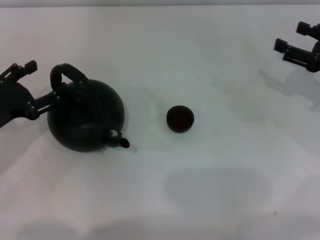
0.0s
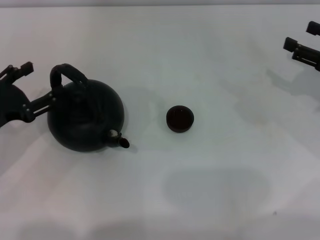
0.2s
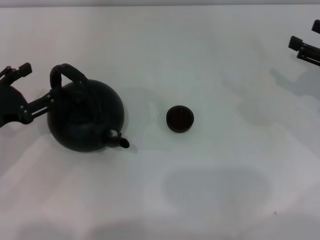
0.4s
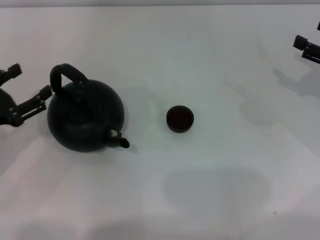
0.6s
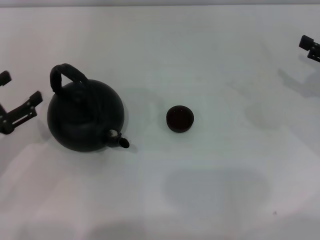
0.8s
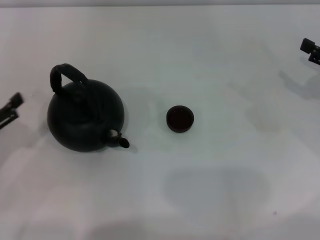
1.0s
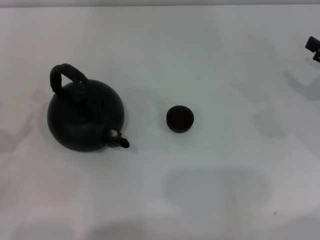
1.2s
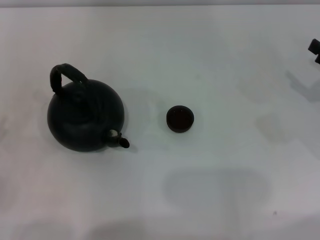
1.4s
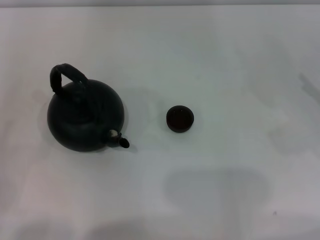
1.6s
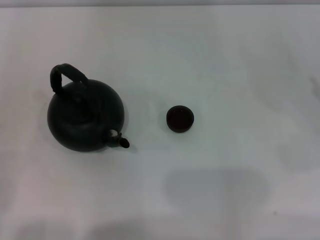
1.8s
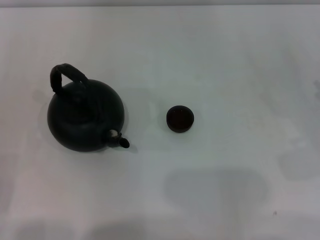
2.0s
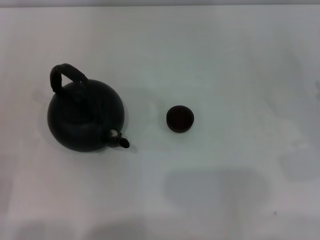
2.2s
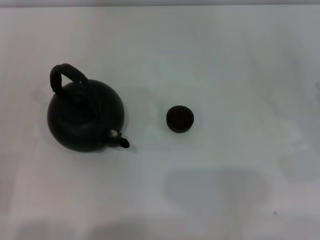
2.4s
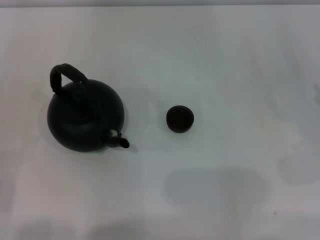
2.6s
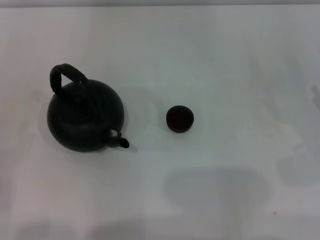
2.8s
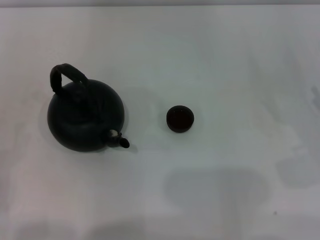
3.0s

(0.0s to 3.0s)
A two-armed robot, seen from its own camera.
Task of the whole recording: Grasp the handle of the teapot with one hand and pour tea into the teacup.
0.0s - 1.6s: The right gripper moves backward, some 5 cm. The left gripper is displaced backward and to the left by about 15 cm.

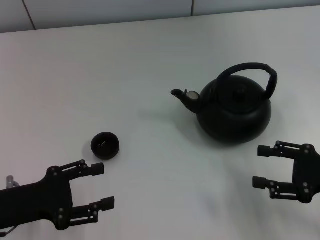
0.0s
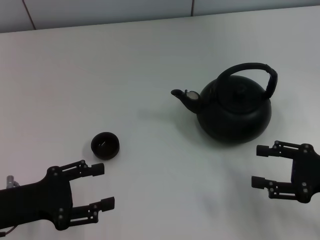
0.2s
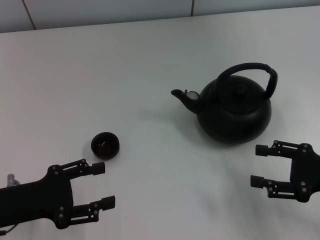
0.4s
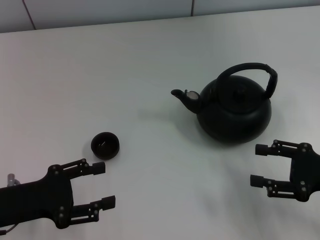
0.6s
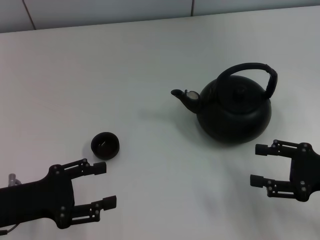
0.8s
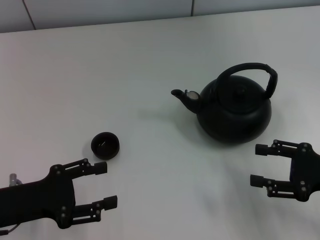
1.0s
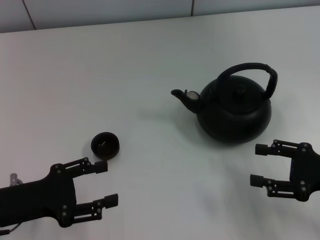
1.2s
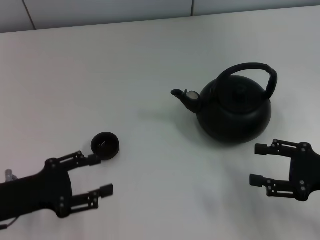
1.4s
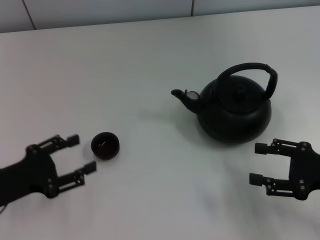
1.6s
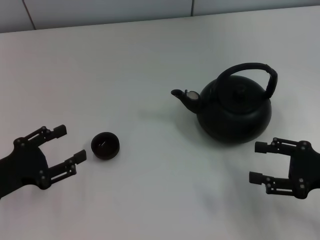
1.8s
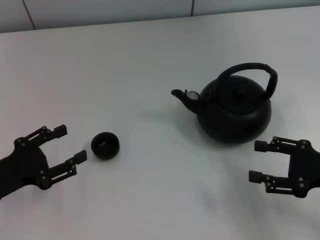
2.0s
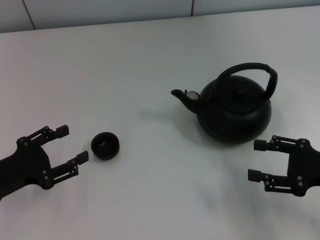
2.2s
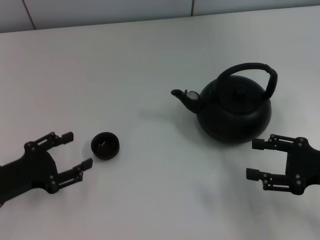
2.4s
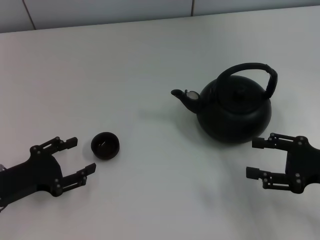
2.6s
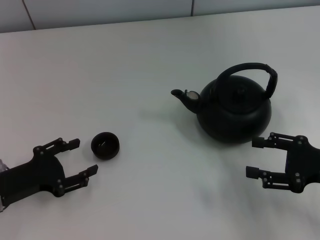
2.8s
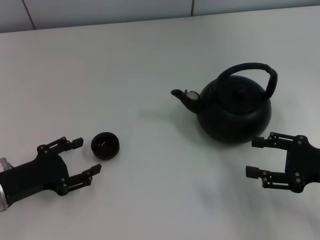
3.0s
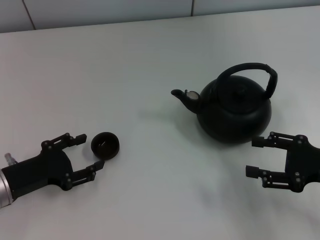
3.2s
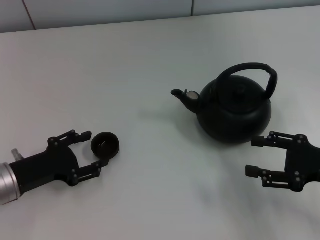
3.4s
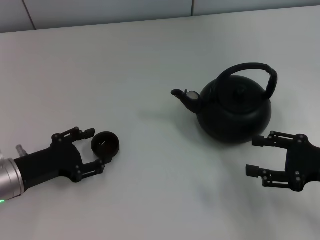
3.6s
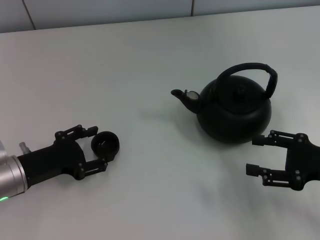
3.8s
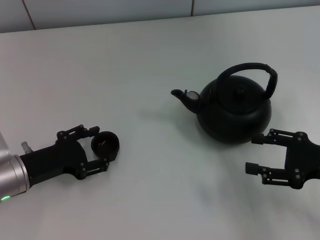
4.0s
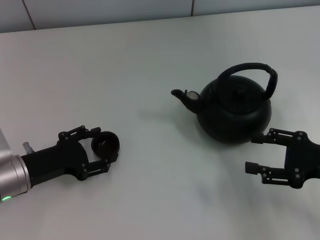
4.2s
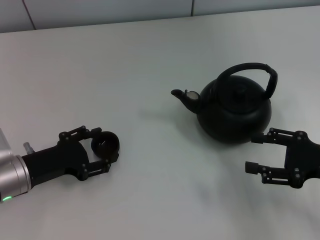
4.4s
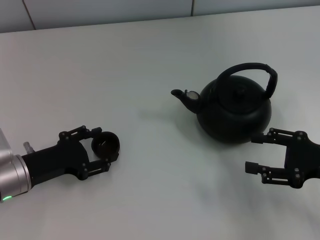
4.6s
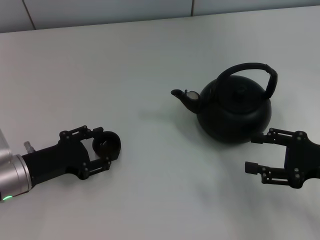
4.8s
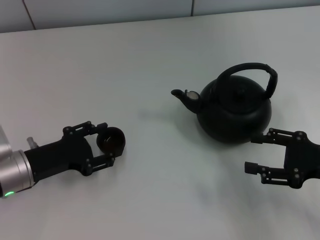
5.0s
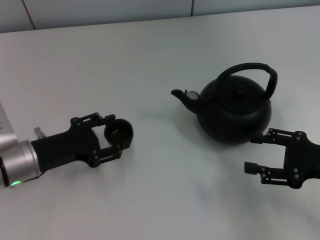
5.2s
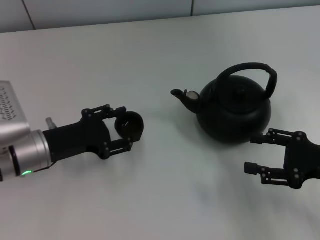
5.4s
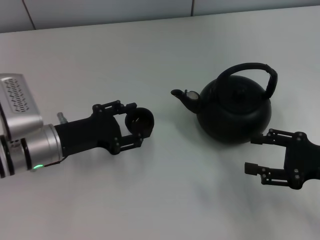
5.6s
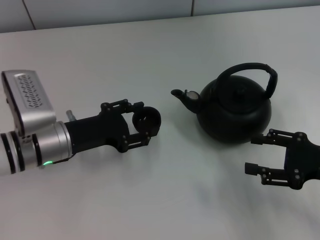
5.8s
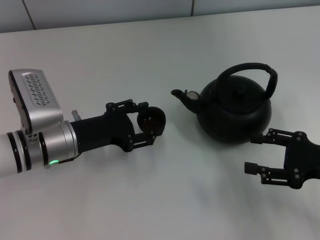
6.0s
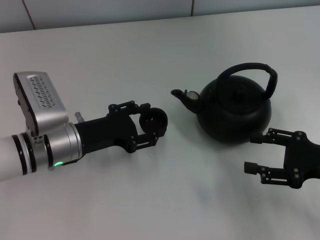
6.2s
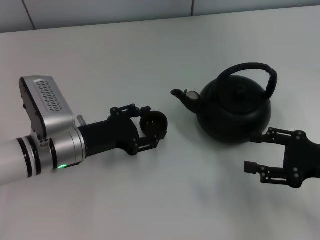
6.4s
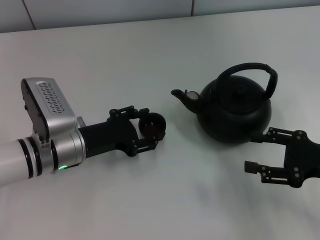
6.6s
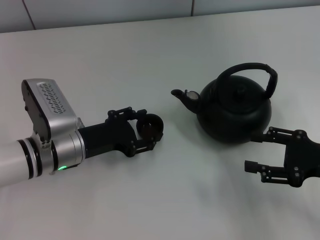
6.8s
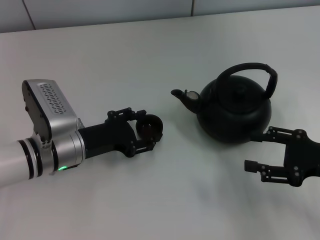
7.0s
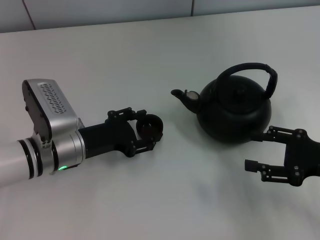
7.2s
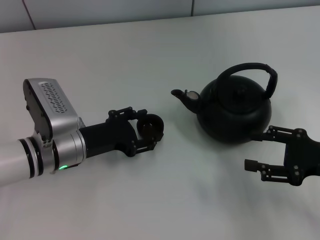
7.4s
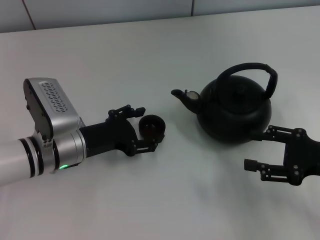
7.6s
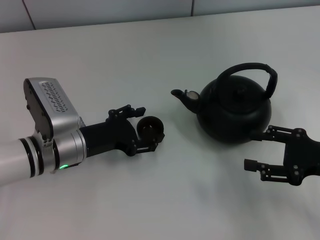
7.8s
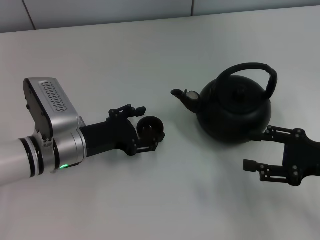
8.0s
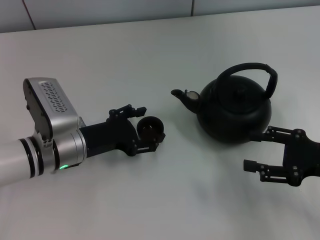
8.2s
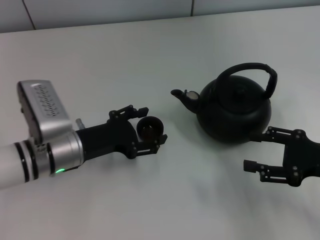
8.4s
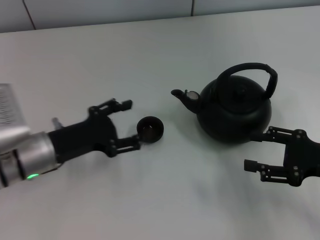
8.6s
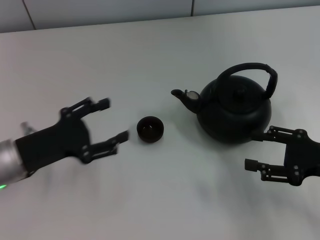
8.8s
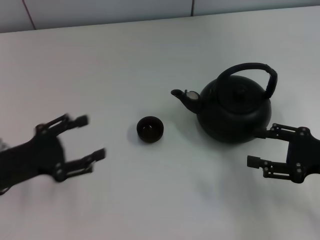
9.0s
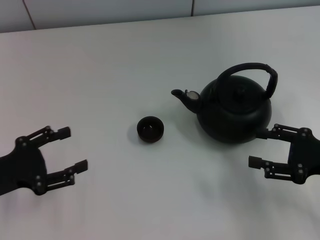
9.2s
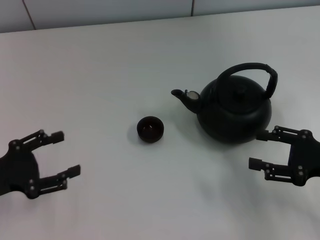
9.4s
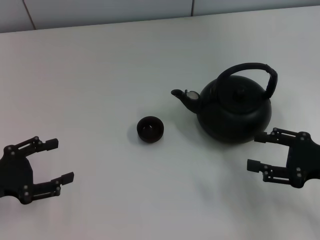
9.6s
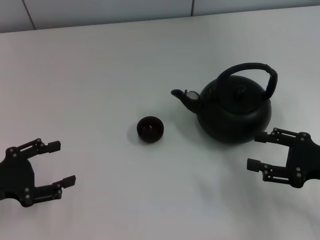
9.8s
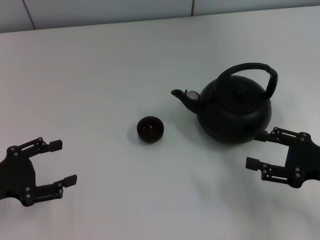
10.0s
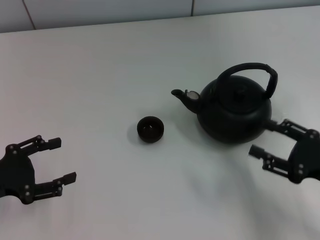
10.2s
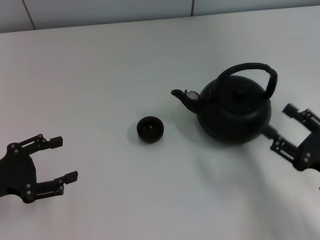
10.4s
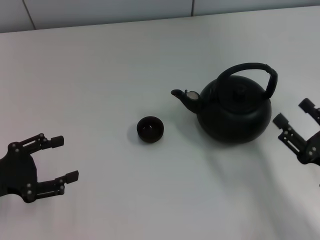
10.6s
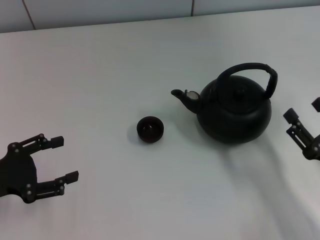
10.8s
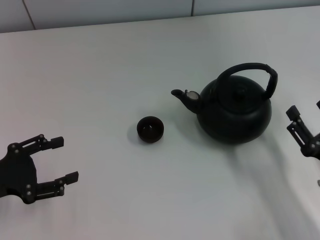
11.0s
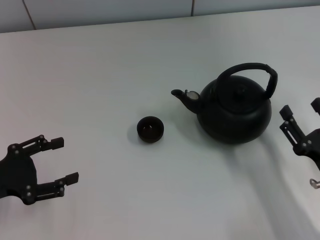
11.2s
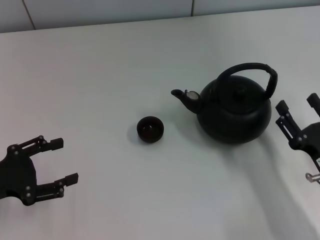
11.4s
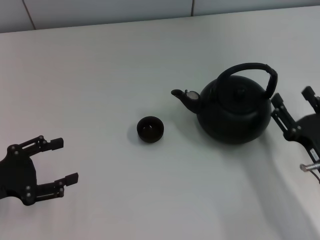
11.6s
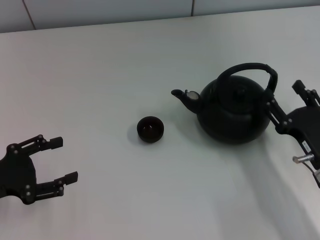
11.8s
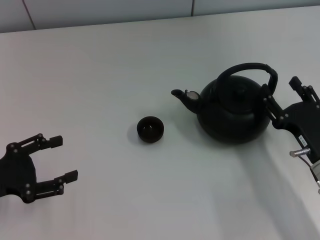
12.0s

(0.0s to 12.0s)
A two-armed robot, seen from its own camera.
Task of the whole recording: Grasp the handle of the teapot with one hand and pour tea into the teacup.
Step, 0.0s - 5.0s: Pick up the teacup with the left gripper.
Step, 5.2s - 8.0s: Place the teacup in the center of view with the left gripper.
0.0s - 1.6s: The grippers stay close to where they were, moving slightly.
1.6s - 3.0s: The grippers make only small movements.
3.0s - 4.4s: There are only small adjustments of the grippers.
4.4s - 6.0s: The left gripper goes roughly 5 cm to the right, and closes.
6.0s - 7.6s: The left gripper opens its fingers.
7.6s - 9.0s: The left gripper is displaced to the left and backward by about 15 cm, and opens up.
9.0s - 10.4s: The right gripper is displaced backward by some 5 cm.
10.4s - 12.0s: The right gripper moves roughly 5 cm.

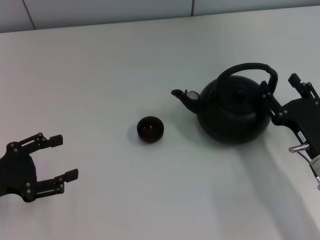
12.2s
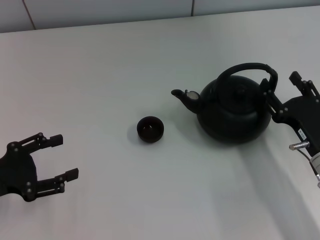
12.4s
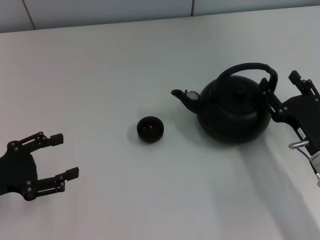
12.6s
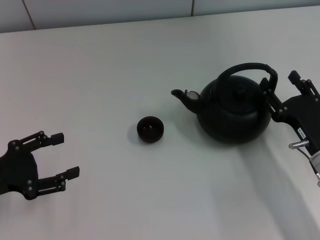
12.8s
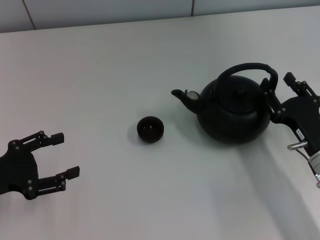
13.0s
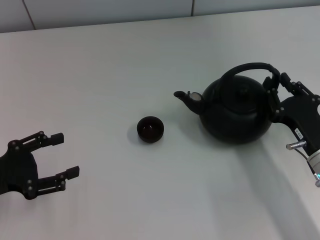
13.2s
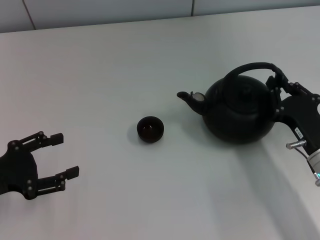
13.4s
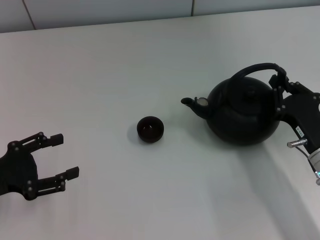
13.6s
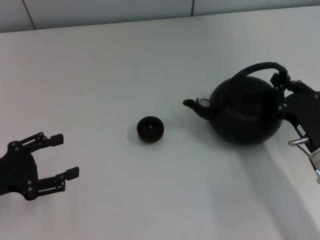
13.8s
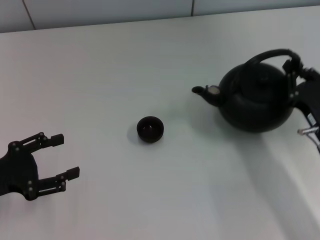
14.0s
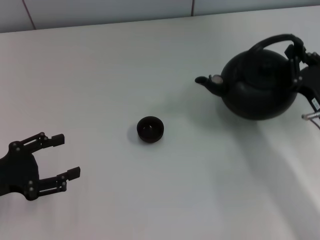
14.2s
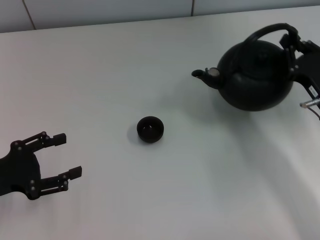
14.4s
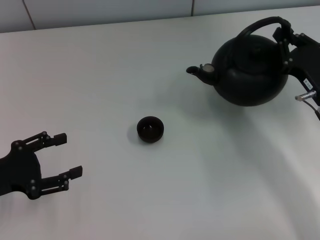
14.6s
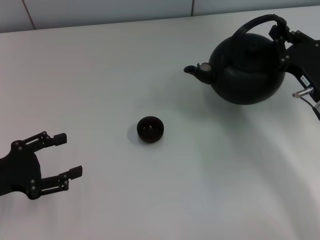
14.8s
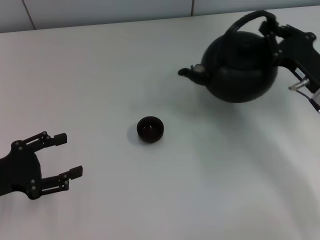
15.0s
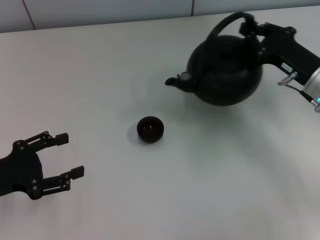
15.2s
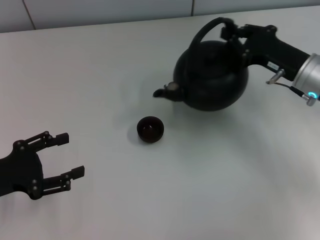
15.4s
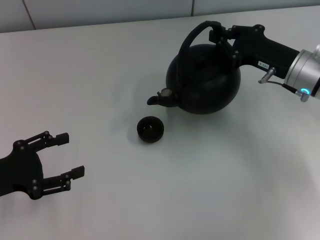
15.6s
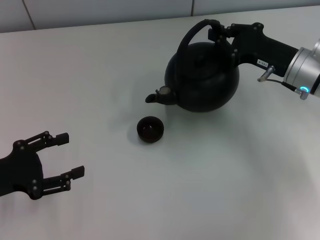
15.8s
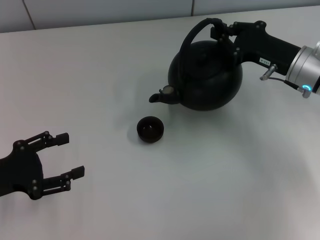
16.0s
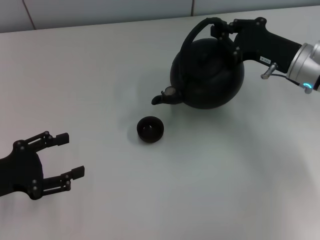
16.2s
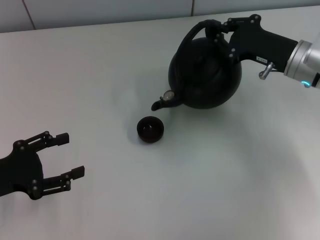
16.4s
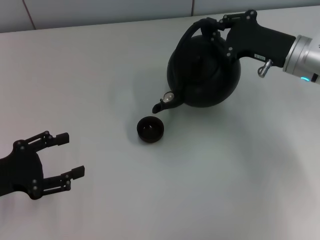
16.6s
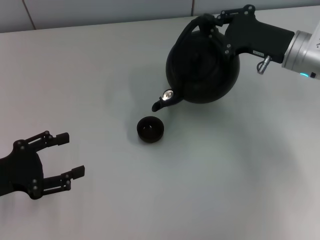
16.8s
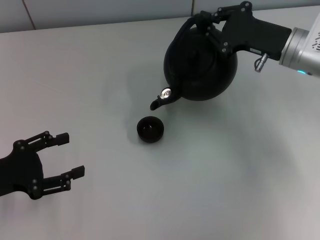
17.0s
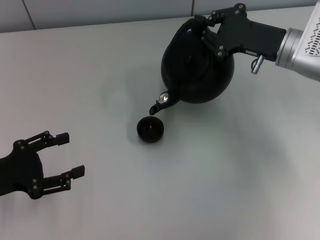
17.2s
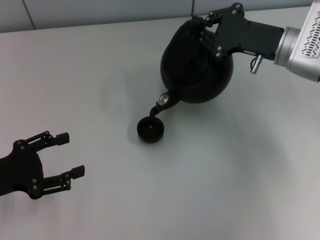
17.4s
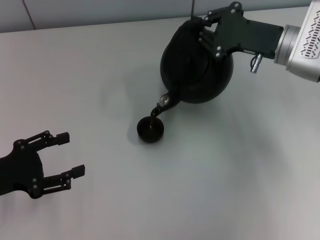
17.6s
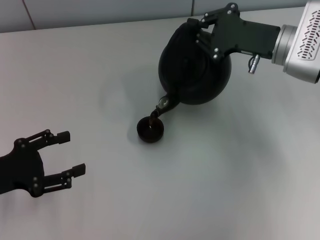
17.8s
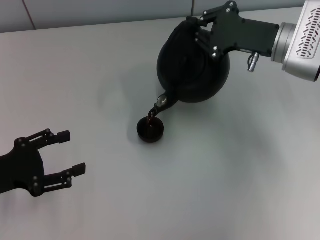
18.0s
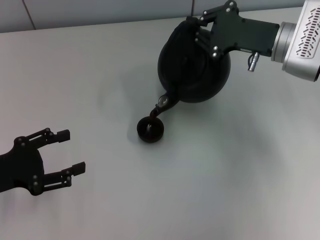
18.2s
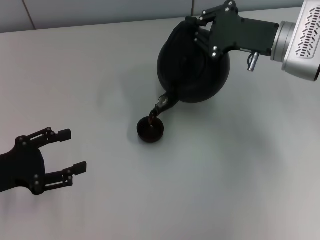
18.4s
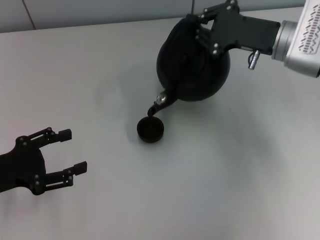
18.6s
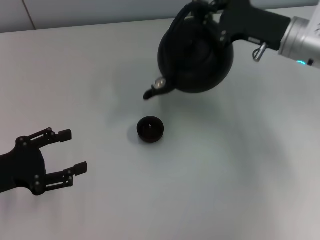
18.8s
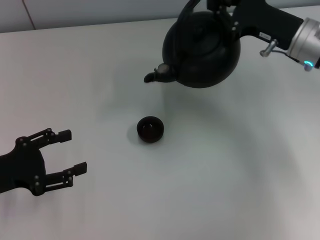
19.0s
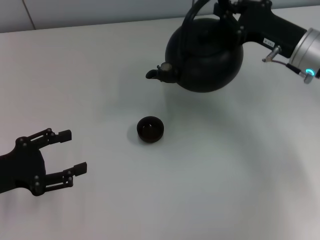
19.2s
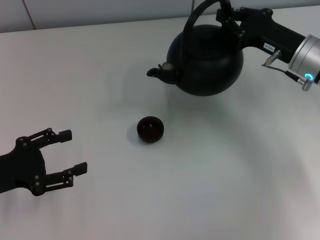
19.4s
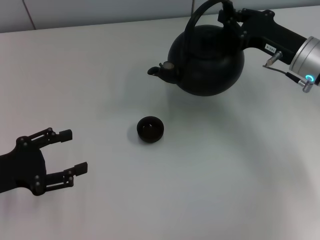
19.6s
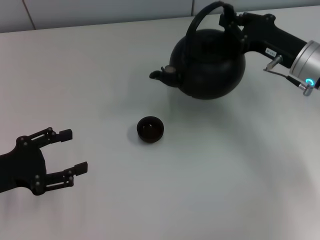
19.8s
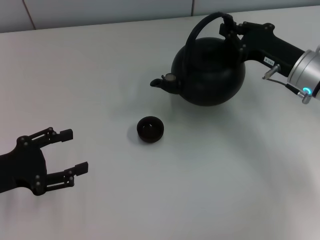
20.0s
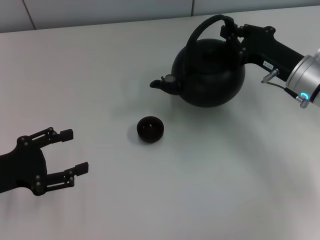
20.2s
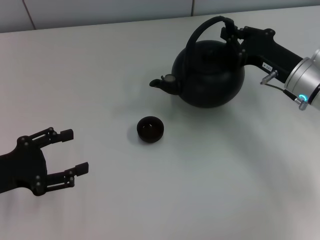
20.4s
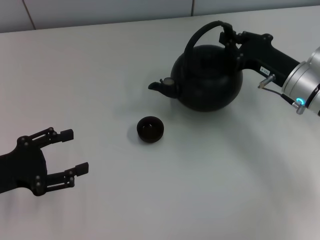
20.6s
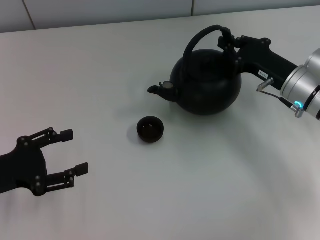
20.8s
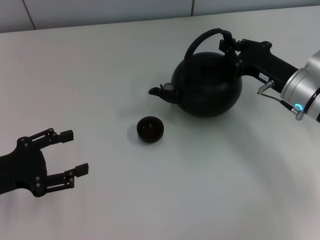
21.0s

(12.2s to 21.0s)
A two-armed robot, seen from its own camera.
Task of the whole recording: Grasp the handle of the teapot with one hand and pour tea into the teacup.
Step, 12.2s - 14.2s: Pick up the teapot with the right gripper.
12.2s - 13.6s: The right gripper closes.
13.6s - 15.2s: The right gripper goes roughly 15 cm forward and upward.
15.2s - 16.6s: The right gripper shifts by approximately 5 cm.
16.6s - 18.0s: The grippers make only small movements.
19.6s - 21.0s: There are only small adjustments of the grippers.
